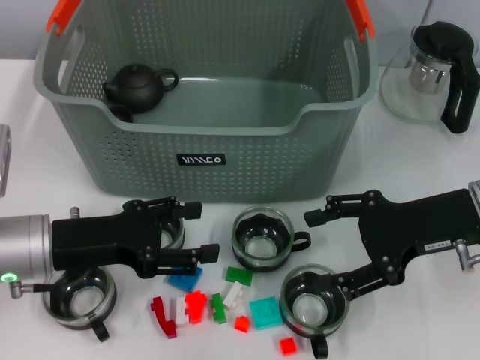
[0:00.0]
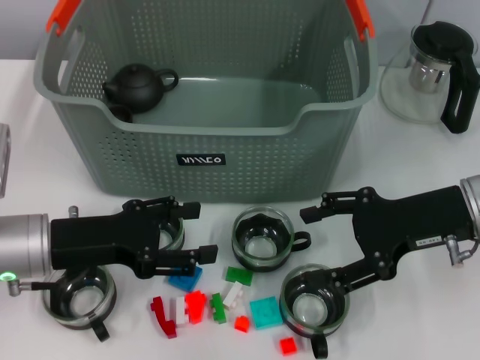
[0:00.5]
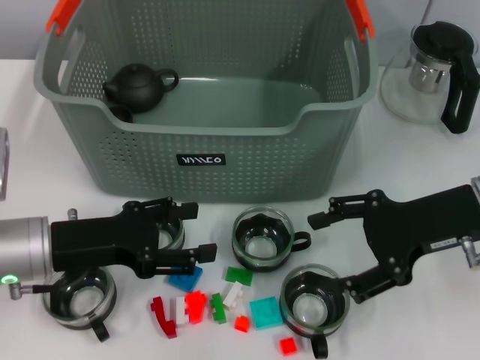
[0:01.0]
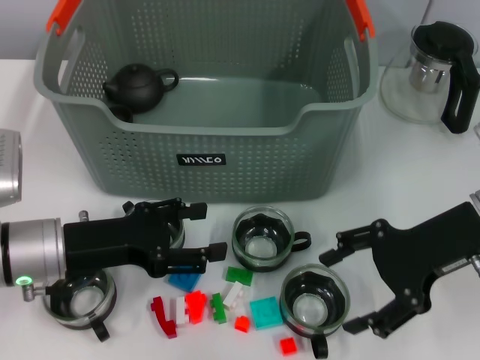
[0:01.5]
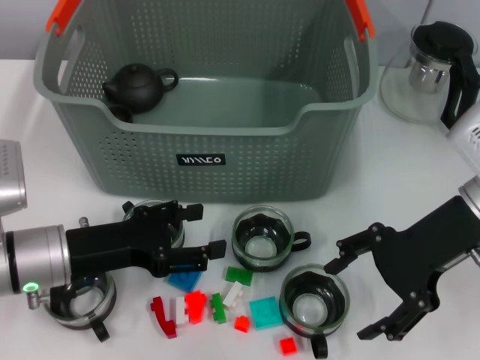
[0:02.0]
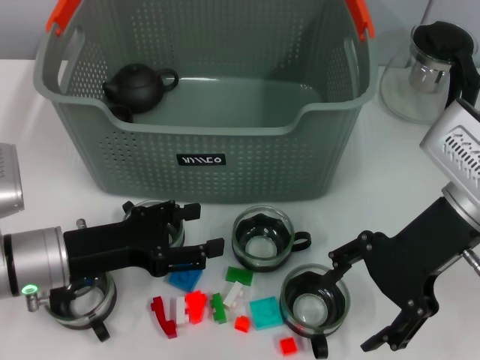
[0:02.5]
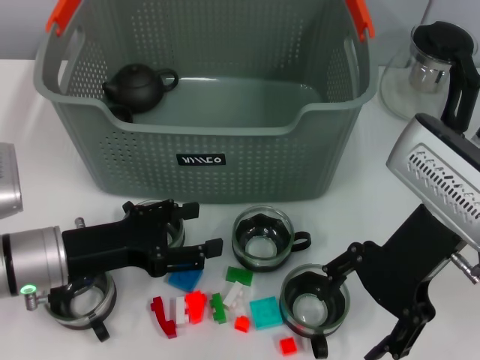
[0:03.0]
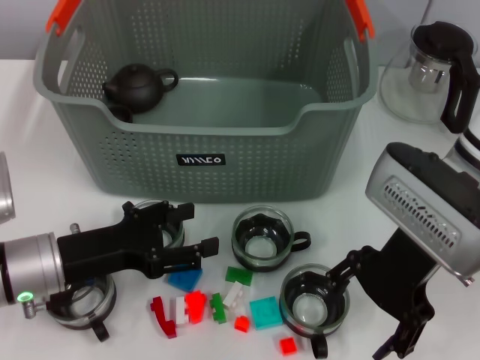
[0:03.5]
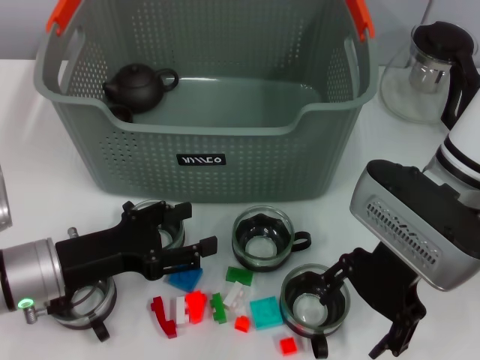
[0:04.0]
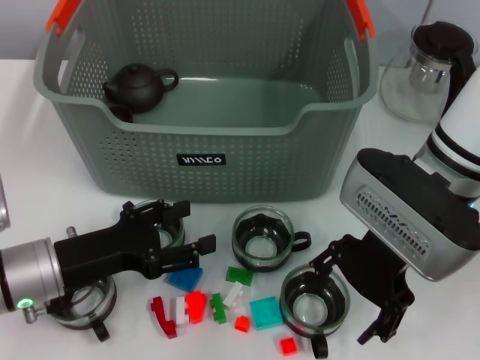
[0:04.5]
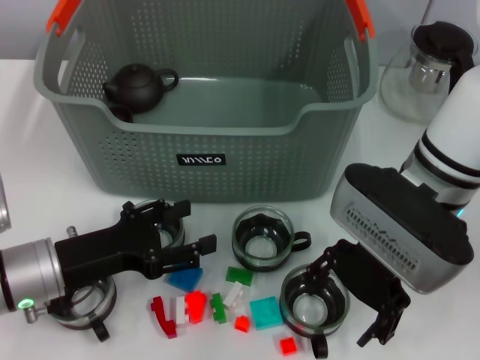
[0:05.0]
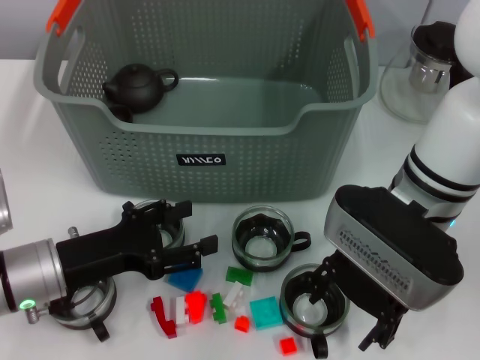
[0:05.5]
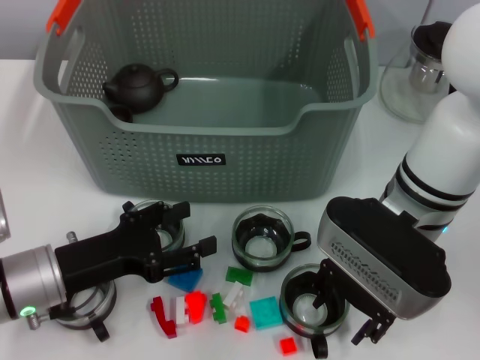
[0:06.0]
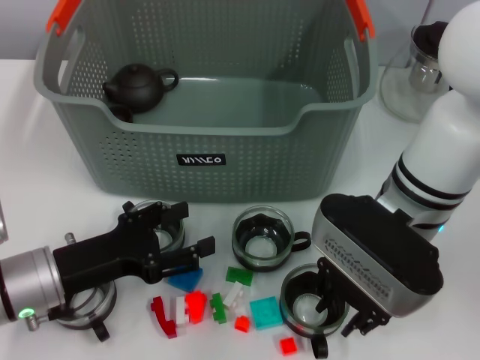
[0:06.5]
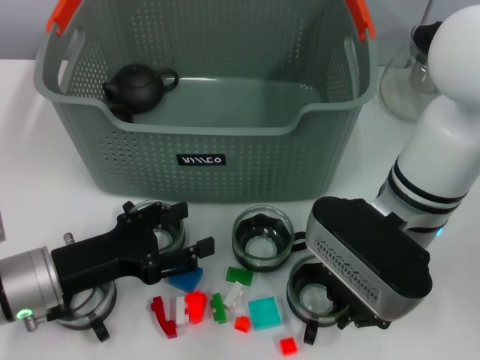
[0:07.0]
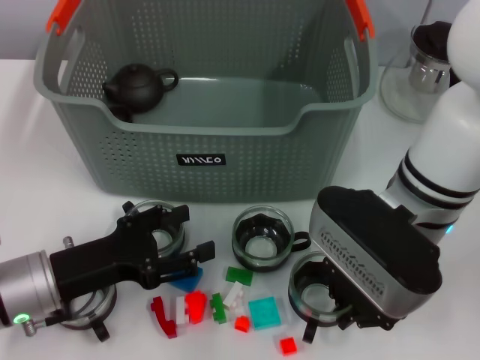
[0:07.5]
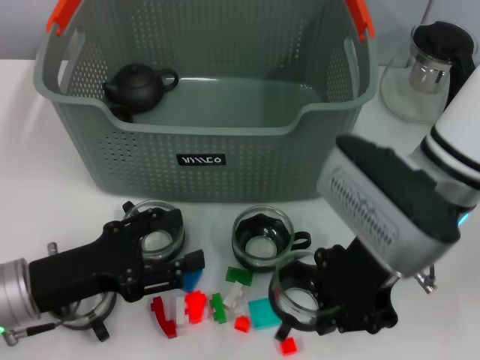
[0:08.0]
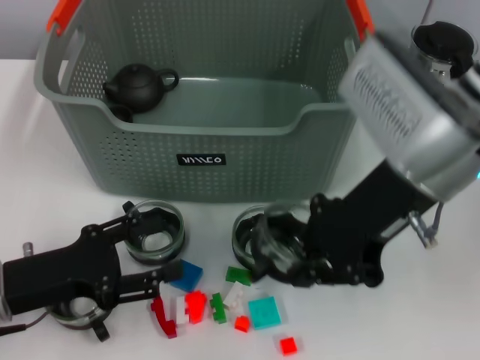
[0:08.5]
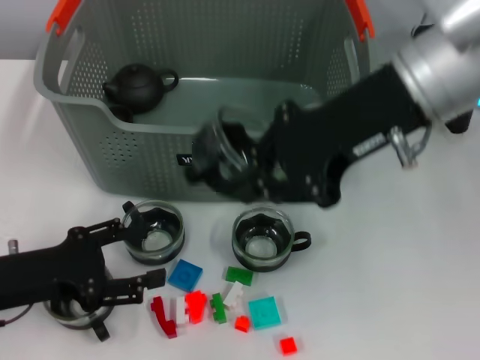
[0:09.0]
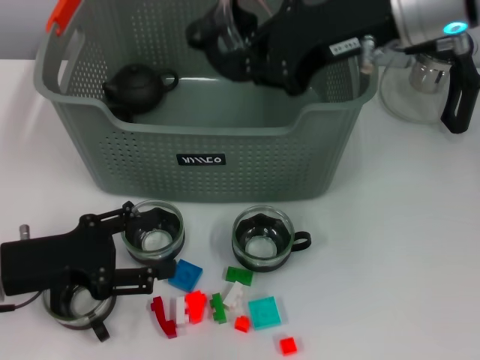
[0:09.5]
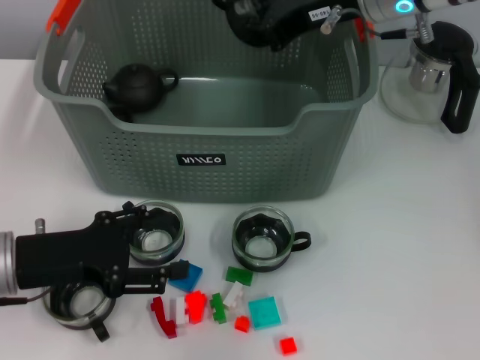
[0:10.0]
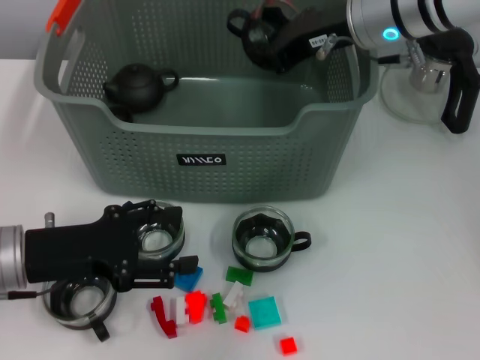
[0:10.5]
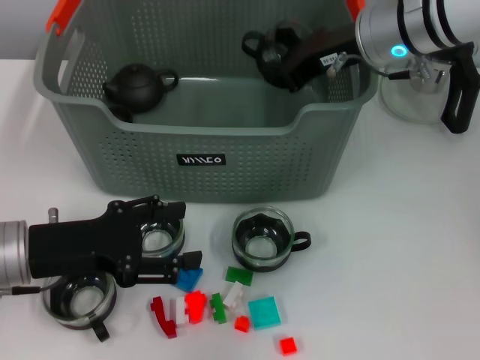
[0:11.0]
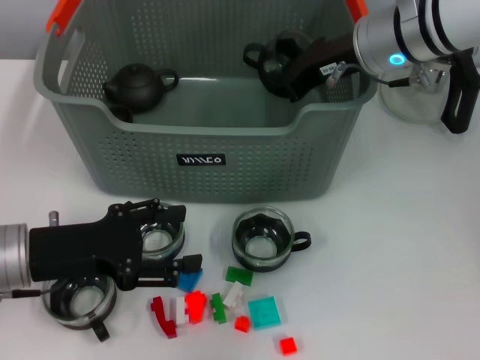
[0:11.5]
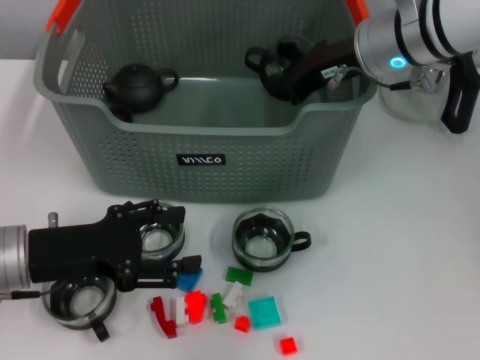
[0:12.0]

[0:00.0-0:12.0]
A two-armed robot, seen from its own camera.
Task of the whole recording: pick up the teacup on the table and place it into the storage bin, pick up the block on the table and place it into the storage bin.
Step, 0:00.0 to 0:06.5: Grasp the cup with right gripper.
0:02.0 to 0:04.0: The right gripper goes about 5 cm to the left.
0:04.0 to 0:06.0: The grippers move only a little.
0:06.0 to 0:08.0: The right gripper closes its fingers.
0:08.0 to 0:10.0: The right gripper heads forward and upward, covering some 15 cm.
0:10.0 to 0:12.0: The right gripper shifts about 5 cm downward.

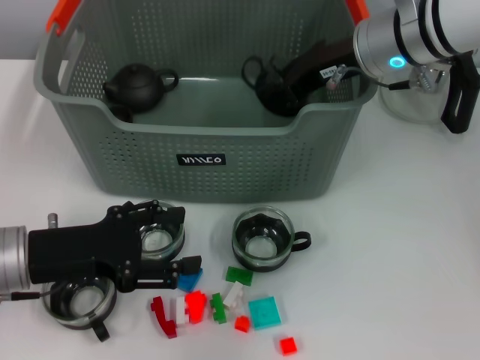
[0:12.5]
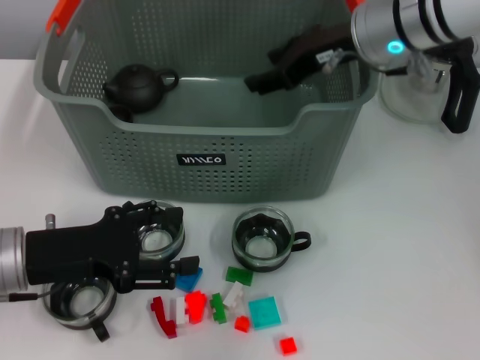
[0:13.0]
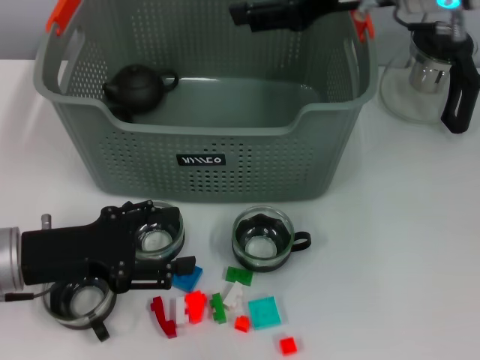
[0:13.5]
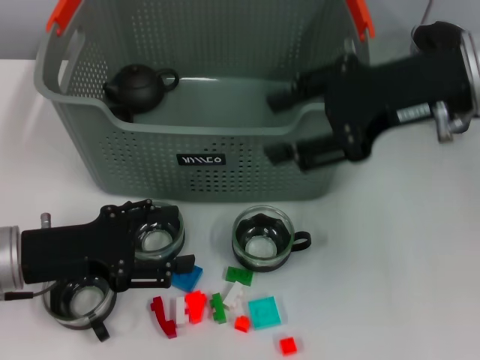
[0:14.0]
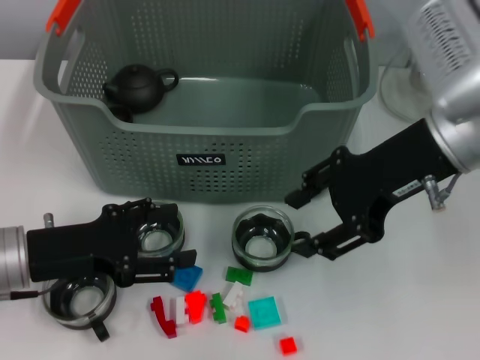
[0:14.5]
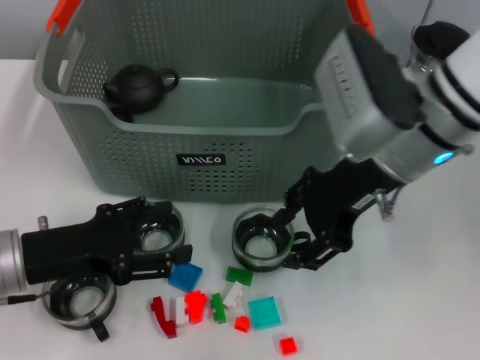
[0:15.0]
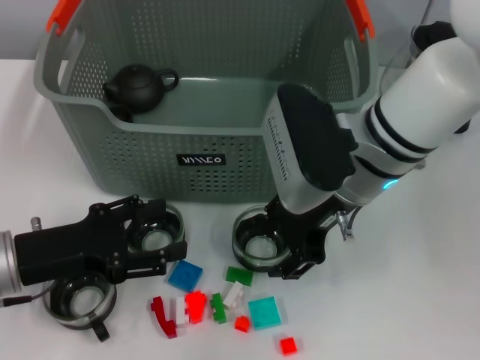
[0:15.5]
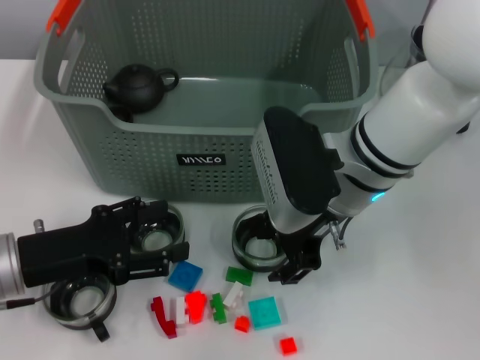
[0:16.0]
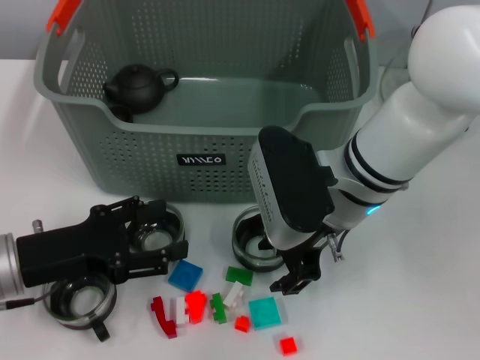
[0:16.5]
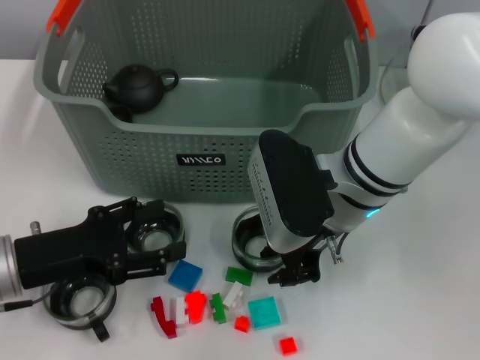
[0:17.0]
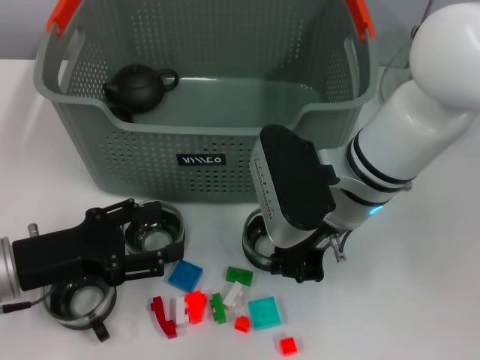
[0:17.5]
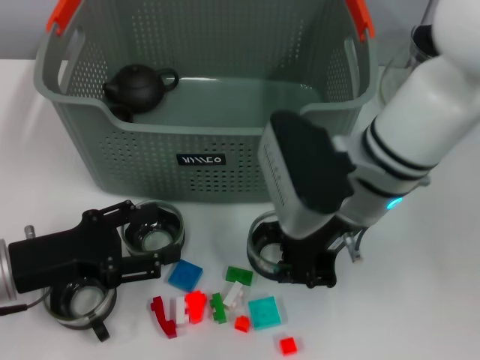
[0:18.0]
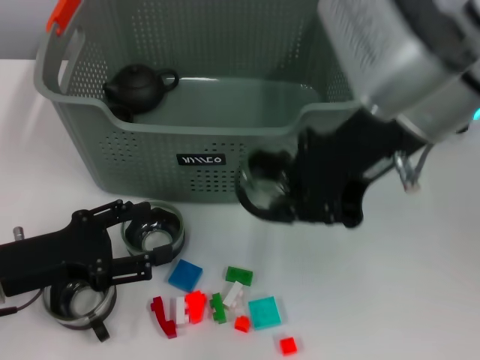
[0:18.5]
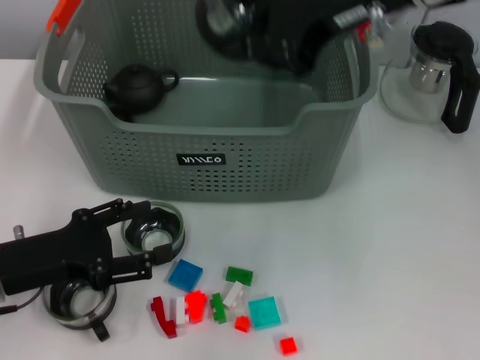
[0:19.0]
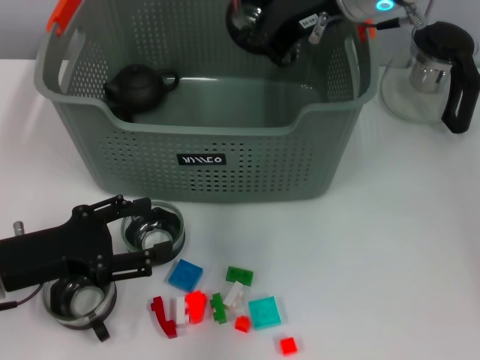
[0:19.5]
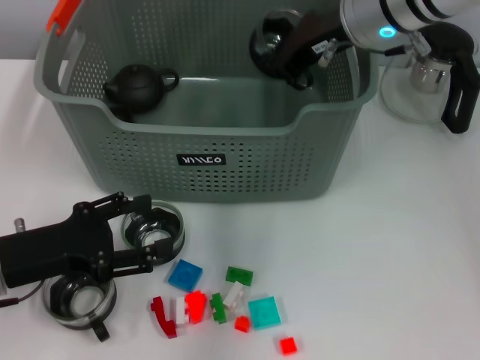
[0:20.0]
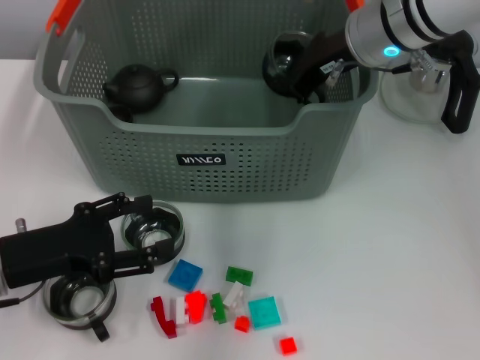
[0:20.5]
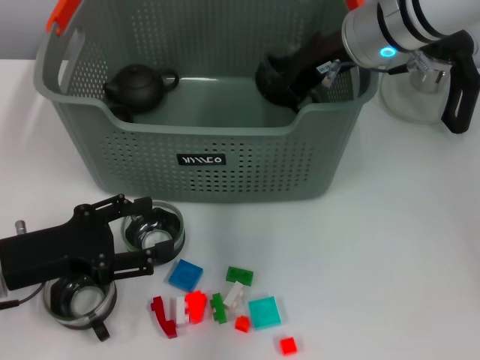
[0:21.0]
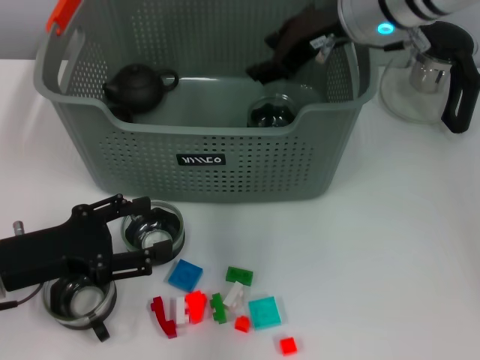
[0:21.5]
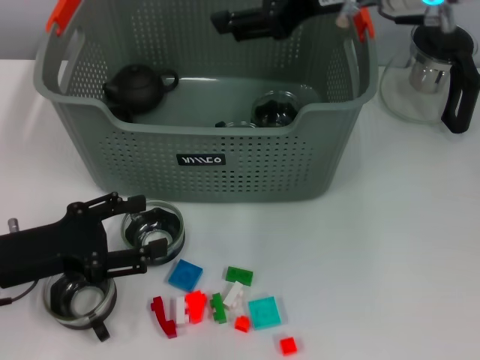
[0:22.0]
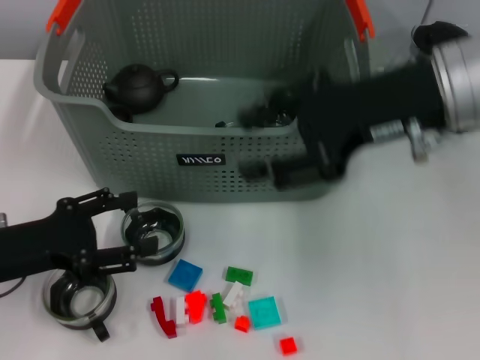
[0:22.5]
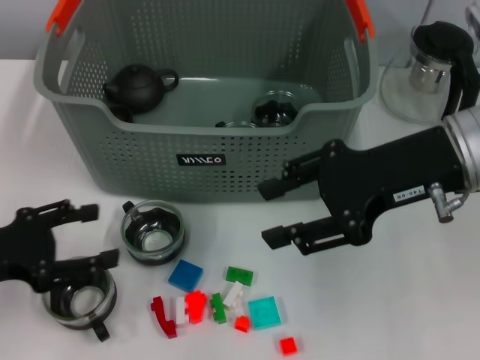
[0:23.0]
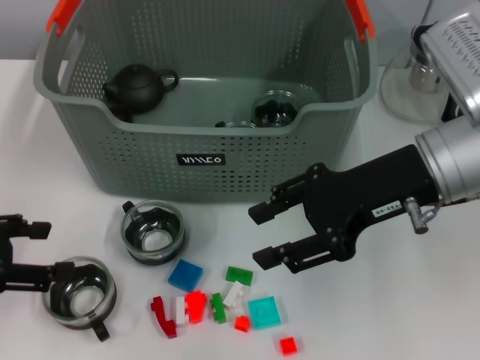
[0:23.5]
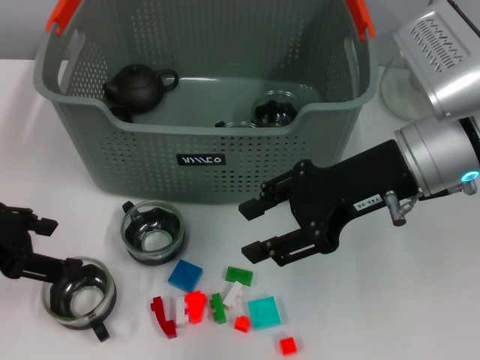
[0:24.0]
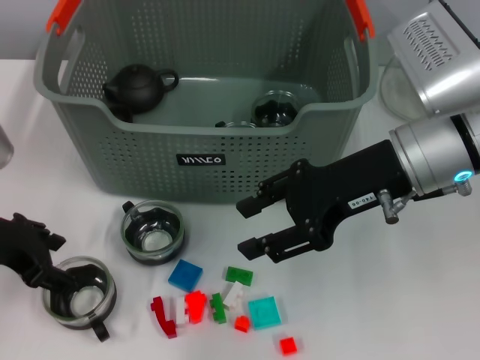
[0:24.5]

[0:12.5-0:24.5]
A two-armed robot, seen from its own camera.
Task of the whole recording: pick up the teacup on the table and place it into the storage bin, pick up the block on the table and place it into the storage bin.
Step, 0:13.5 to 0:17.0: Grasp the cup with right gripper.
Step, 0:17.5 to 0:21.5: Place the cup in the storage box with right gripper.
0:12.5 to 0:14.5: The right gripper shifts roughly 10 cm backward, and opens its fingers.
0:14.5 to 0:16.5: The right gripper shifts about 10 cm to the left and downward.
0:16.5 to 0:18.5: The right gripper moves upward, some 15 cm, and closes up.
0:18.5 to 0:20.5: The right gripper moves forward and downward, approximately 15 cm.
0:20.5 to 0:22.5: The right gripper travels backward by some 10 cm, and opens its fingers.
0:22.5 to 0:24.5: The right gripper heads downward, covering approximately 5 cm. The left gripper heads upward, covering about 5 cm.

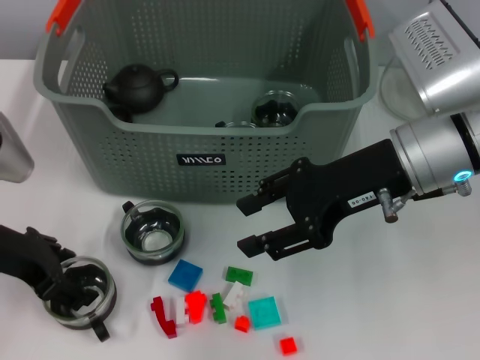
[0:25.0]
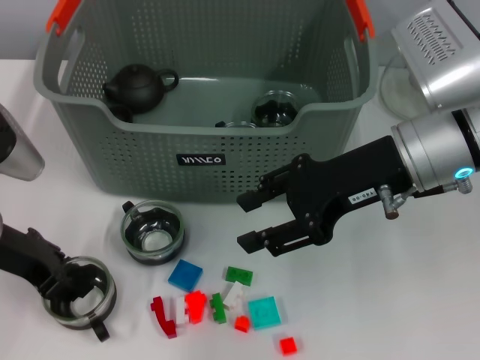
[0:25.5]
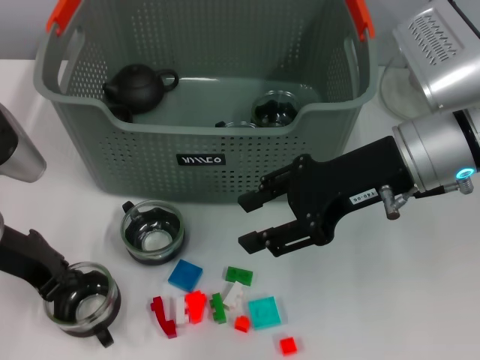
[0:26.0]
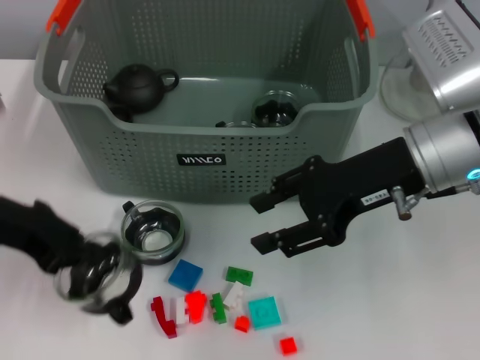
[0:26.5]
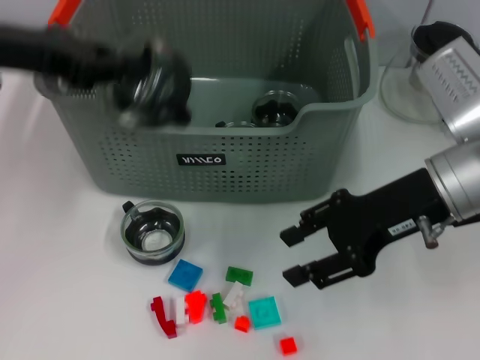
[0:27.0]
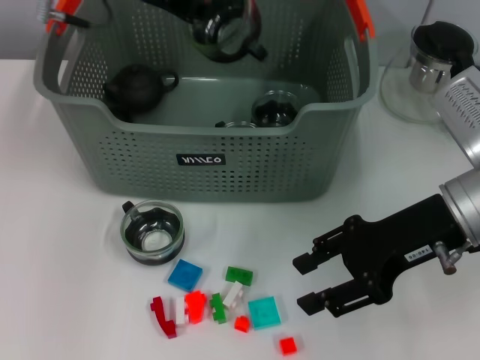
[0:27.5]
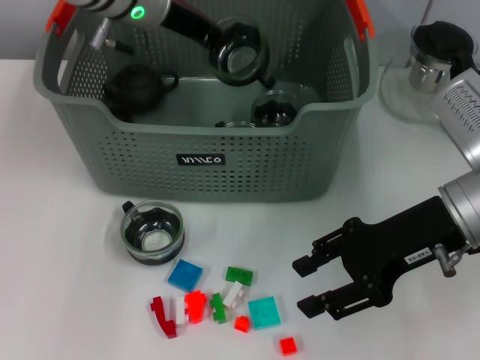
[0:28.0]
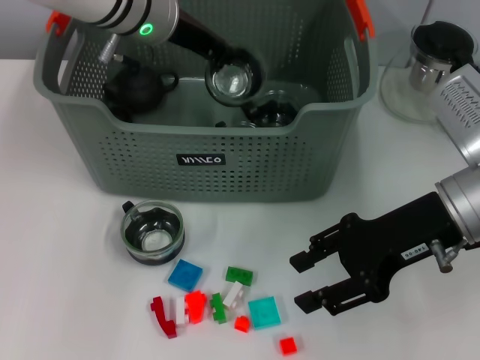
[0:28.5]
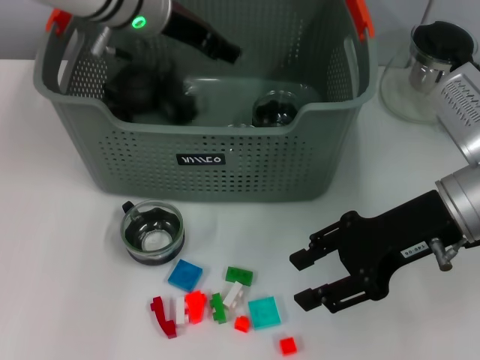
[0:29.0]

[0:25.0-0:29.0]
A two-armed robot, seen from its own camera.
Task of the whole recording: pick up the teacup on the table and place it into the storage bin, pick up the block on the table and place it into the storage bin.
Step, 0:26.5 to 0:28.5: Place the cup in the storage box with left gripper.
0:25.0 to 0:27.0: The left gripper travels upward by approximately 15 cm, and closes up.
0:27.0 to 0:29.0: The left gripper moves to the right and forward, some 15 cm, and opens its fingers.
